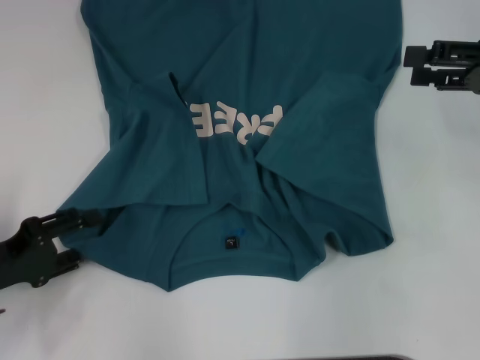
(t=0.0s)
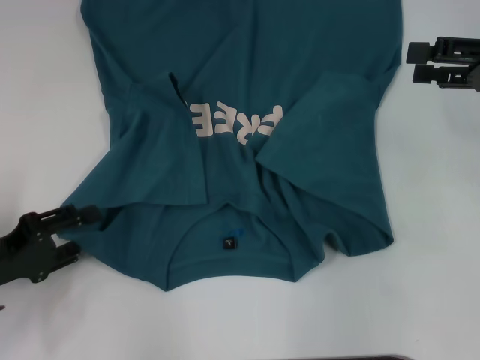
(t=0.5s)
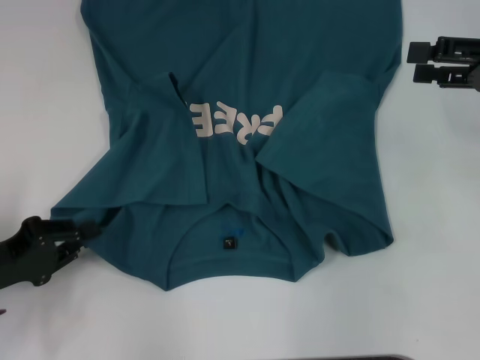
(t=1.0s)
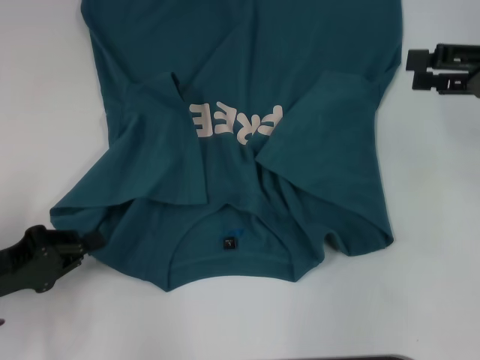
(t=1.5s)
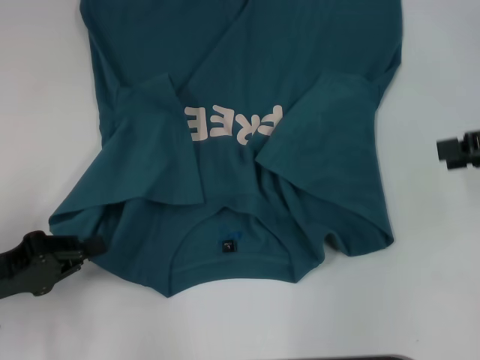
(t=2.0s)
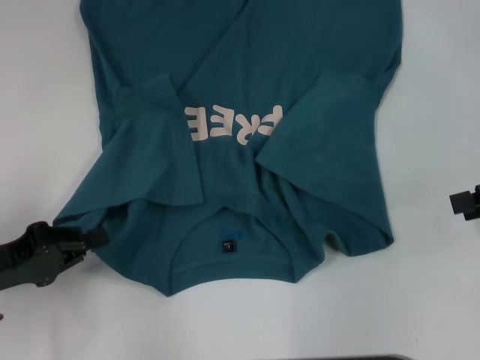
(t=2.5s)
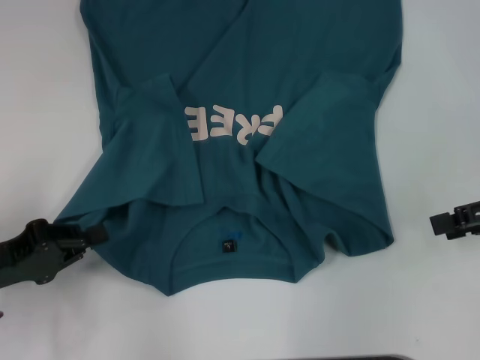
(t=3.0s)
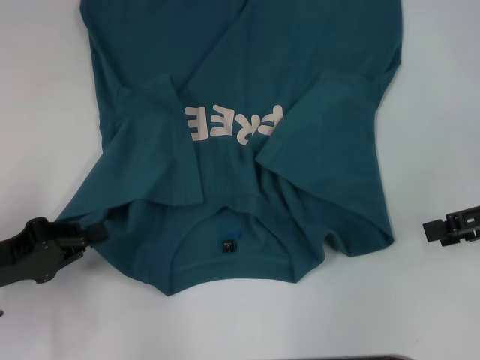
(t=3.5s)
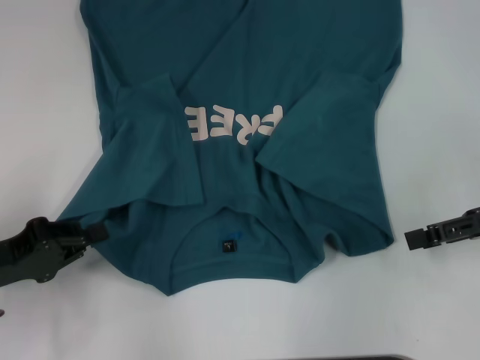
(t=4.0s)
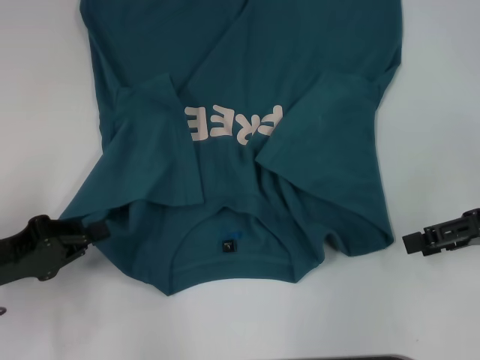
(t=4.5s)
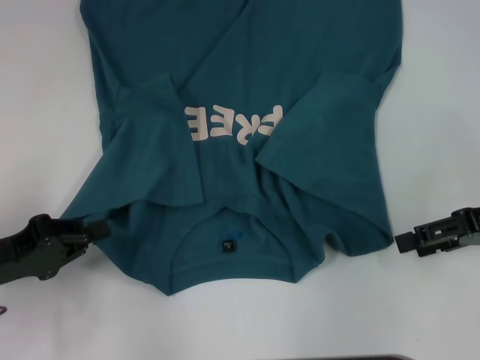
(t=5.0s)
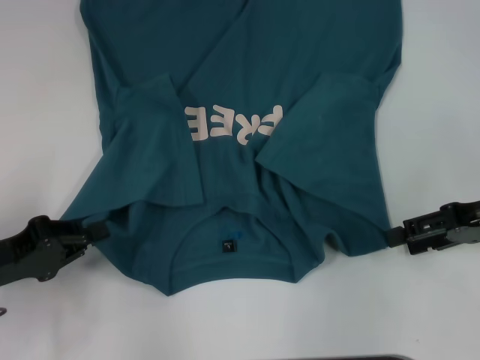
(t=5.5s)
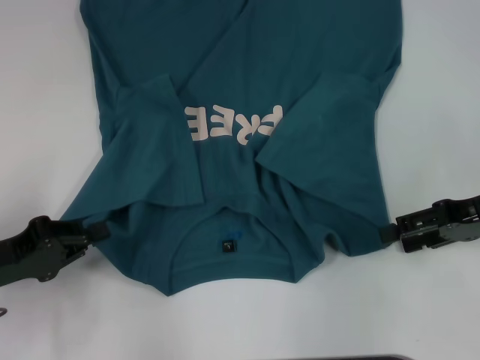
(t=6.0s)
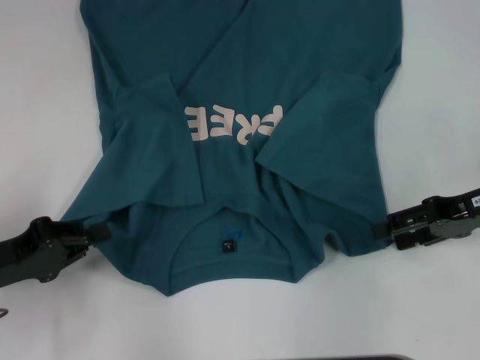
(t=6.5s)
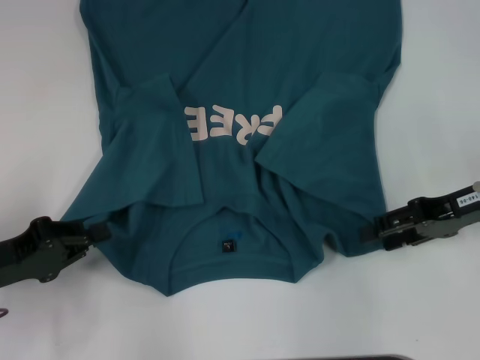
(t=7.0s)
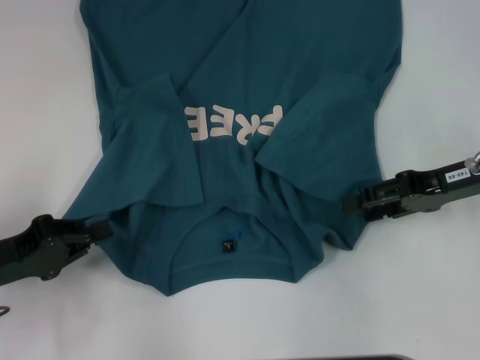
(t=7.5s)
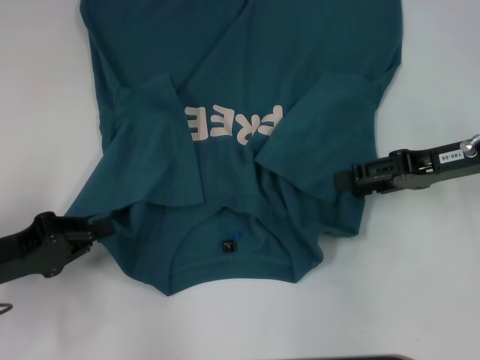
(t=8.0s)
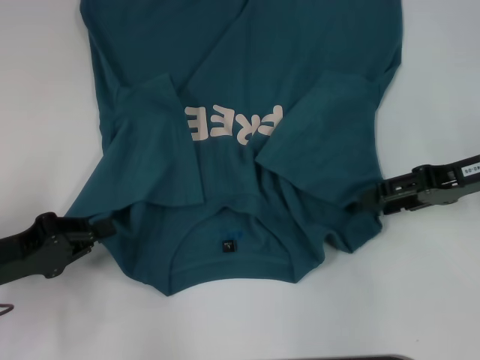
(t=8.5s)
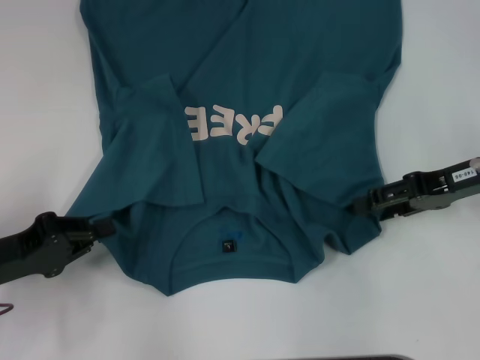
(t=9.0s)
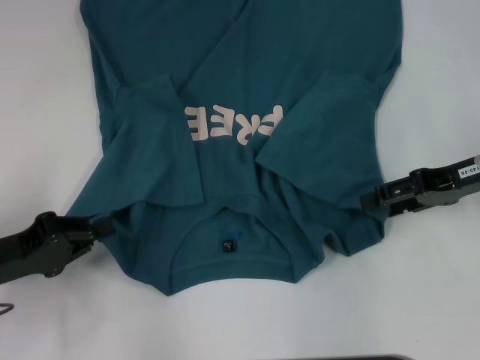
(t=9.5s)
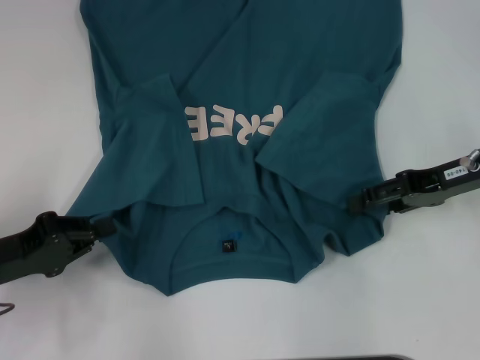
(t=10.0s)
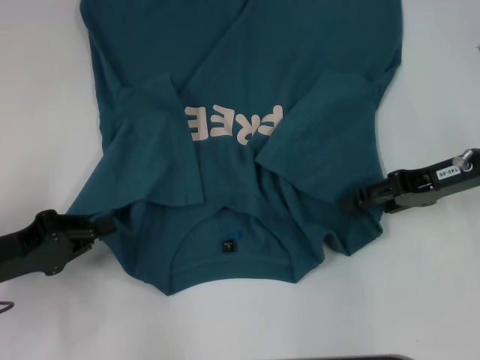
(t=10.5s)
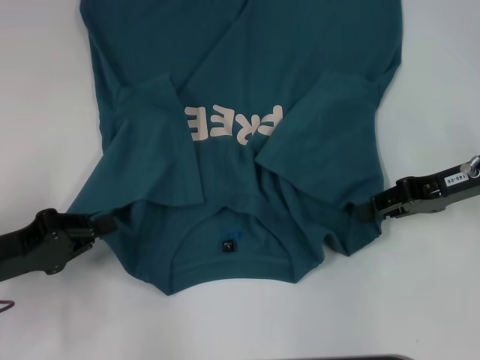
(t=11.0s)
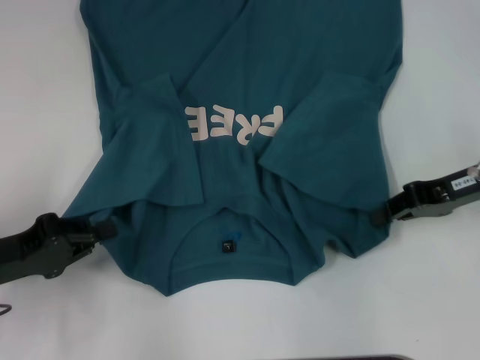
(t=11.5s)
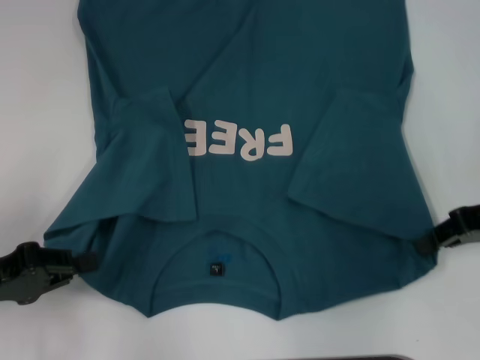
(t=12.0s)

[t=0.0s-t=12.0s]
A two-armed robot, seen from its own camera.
Step, t=1.5s to t=11.5s: Grab the bottom right corner with your right hand.
t=0.0s to t=2.0s: The left gripper closes.
t=2.0s to t=4.0s: The right gripper ends up some 5 cm from where it was.
t=4.0s to t=6.0s: The grippers make only small movements.
t=6.0s to t=10.0s: There are only small adjustments of the grippers.
t=10.0s to t=12.0s: The right gripper closes.

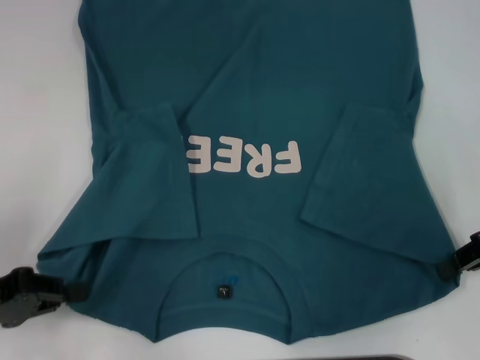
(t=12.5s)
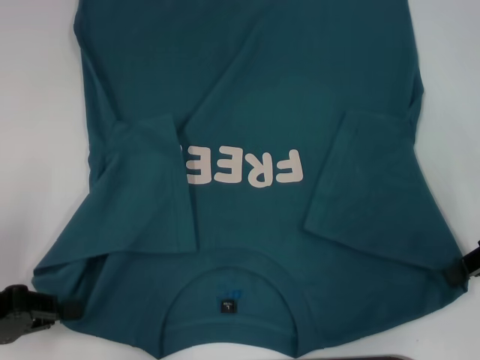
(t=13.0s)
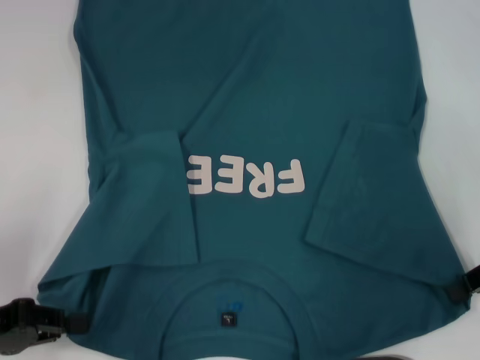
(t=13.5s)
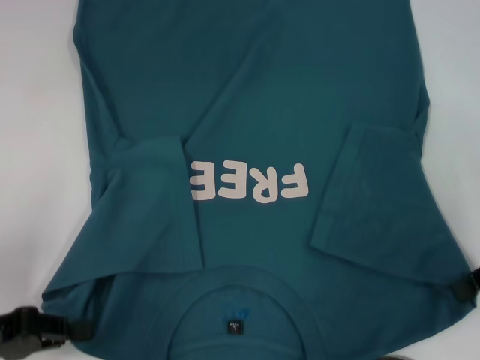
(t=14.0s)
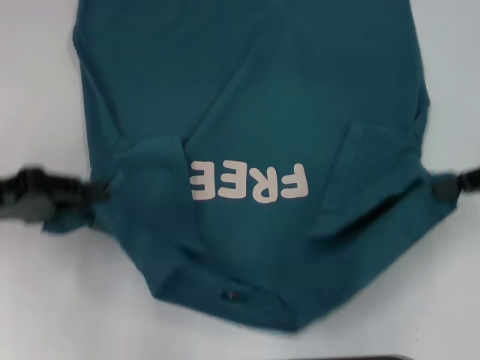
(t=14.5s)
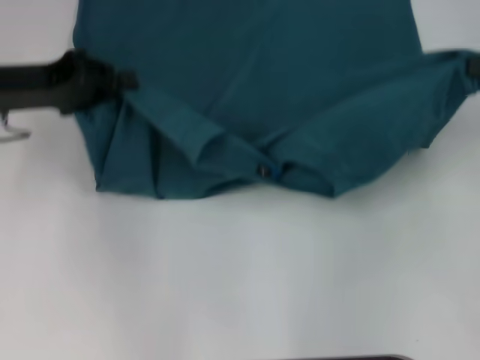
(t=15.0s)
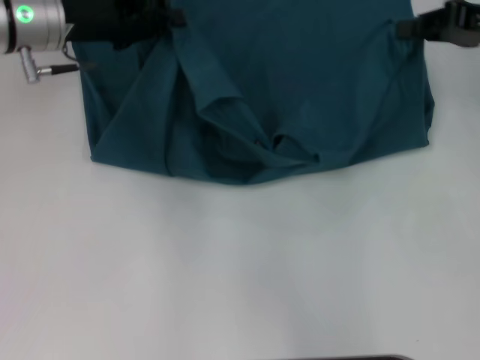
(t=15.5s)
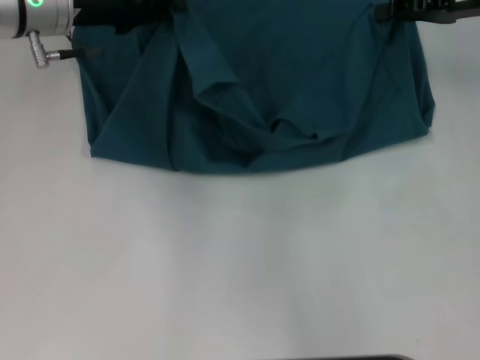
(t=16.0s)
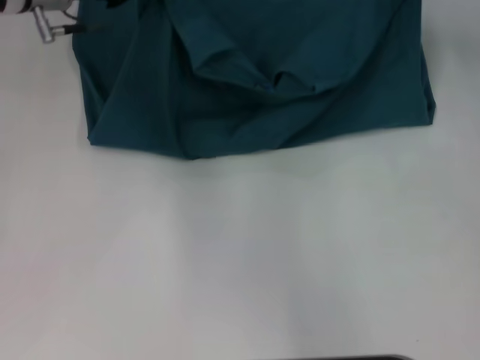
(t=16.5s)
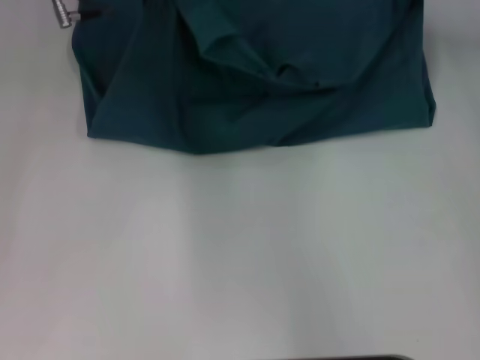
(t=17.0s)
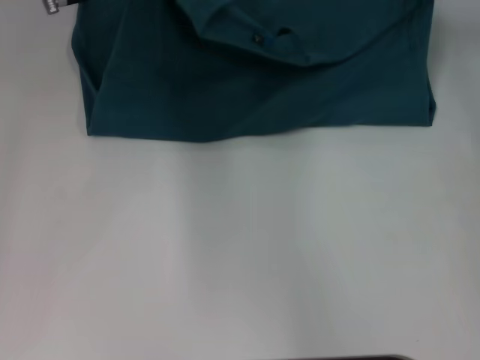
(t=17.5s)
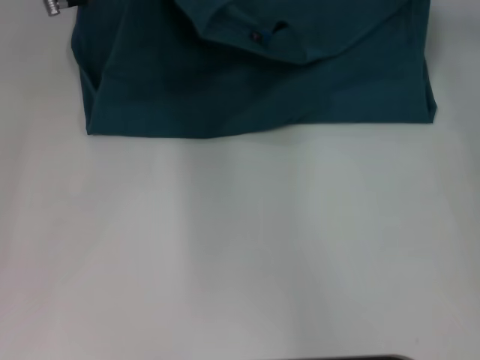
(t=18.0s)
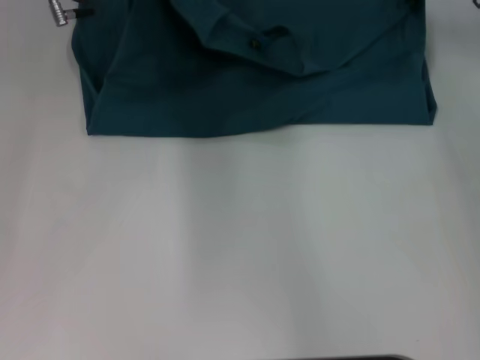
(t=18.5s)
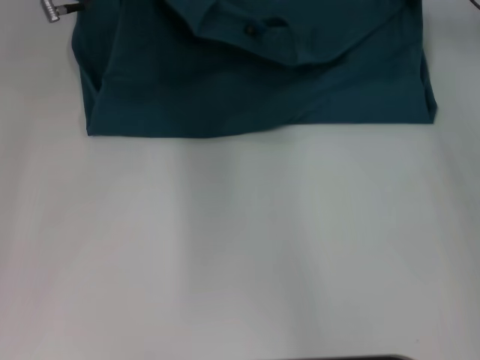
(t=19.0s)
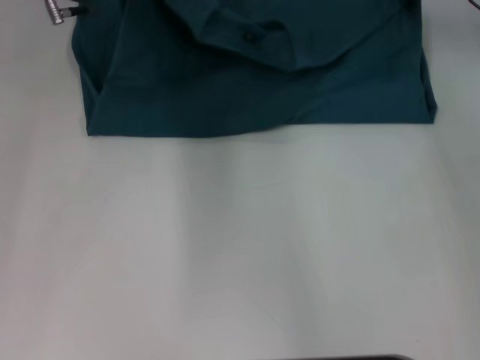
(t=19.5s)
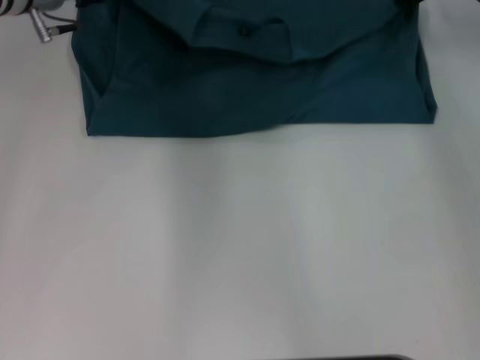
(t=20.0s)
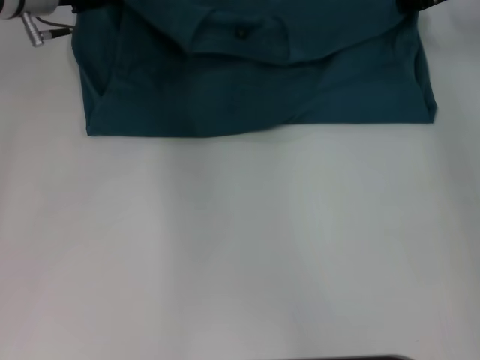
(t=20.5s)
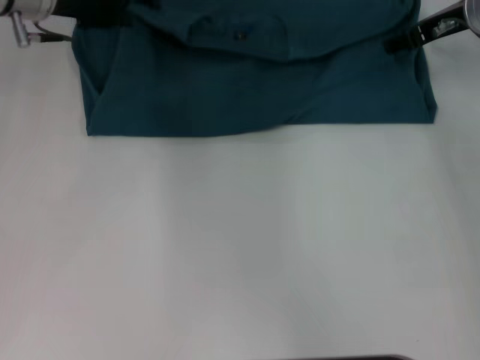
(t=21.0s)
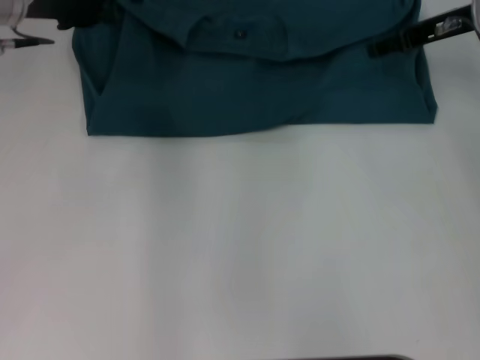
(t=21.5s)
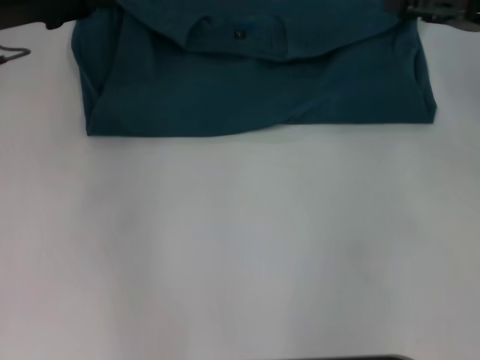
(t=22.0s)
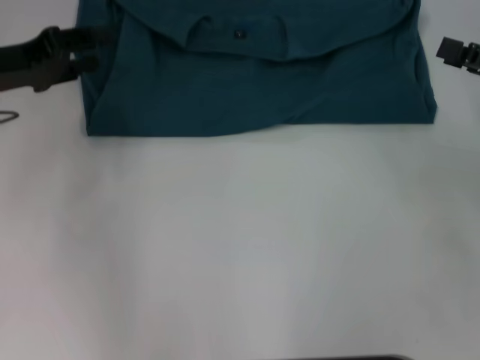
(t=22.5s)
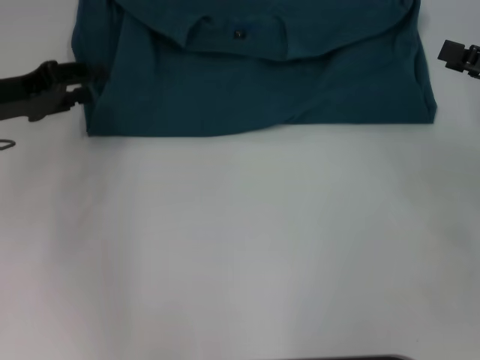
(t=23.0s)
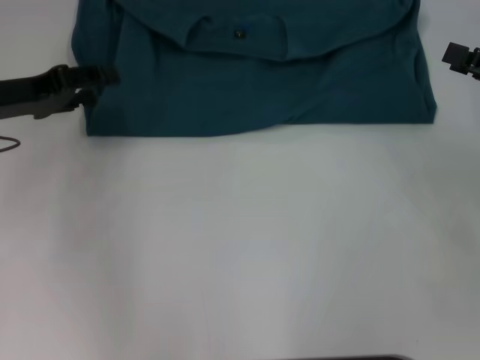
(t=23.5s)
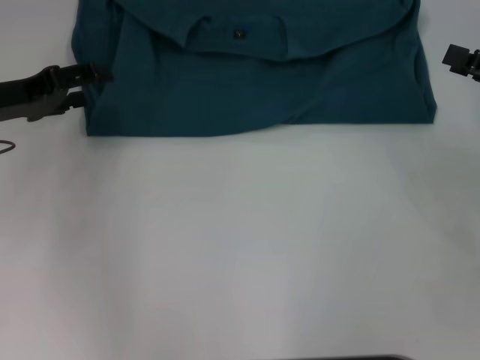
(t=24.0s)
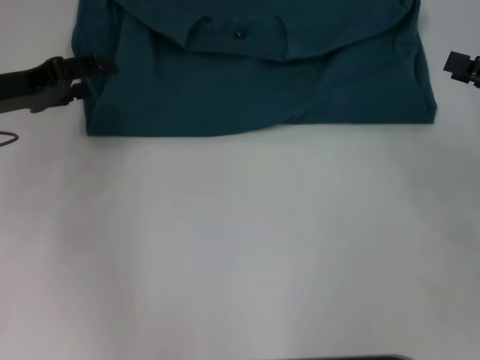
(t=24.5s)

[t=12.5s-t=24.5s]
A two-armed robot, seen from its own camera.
Step, t=12.5s to t=21.0s: Fold the clothes to the left.
Step, t=12.5s to t=21.0s: Fold the clothes to the right.
t=12.5s to t=14.5s: The left gripper is displaced forward by some 5 cm. Meanwhile the right gripper ends up approximately 5 cm from where it was.
t=14.5s to t=16.5s: The right gripper is displaced forward by about 15 cm. Meanwhile the left gripper shifts approximately 20 cm forward and to the right.
t=16.5s to t=18.5s: The right gripper ends up roughly 5 cm from where it was.
t=18.5s to t=20.5s: The left gripper opens its fingers. Meanwhile the right gripper opens.
t=20.5s to t=22.5s: The right gripper heads backward and to the right, covering roughly 20 cm. The left gripper heads backward and to the left, covering roughly 10 cm.
t=22.5s to t=24.5s: The grippers stay close to where they were, moving slightly.

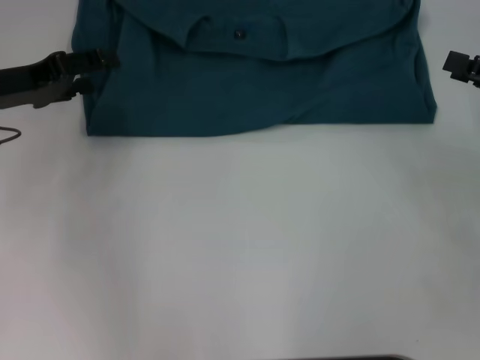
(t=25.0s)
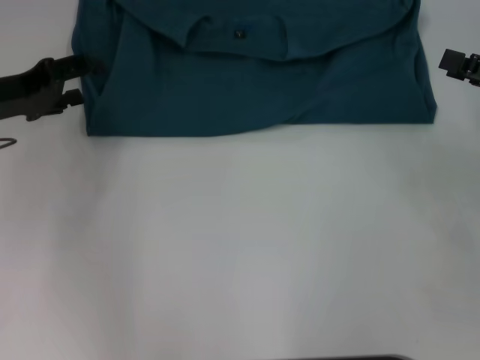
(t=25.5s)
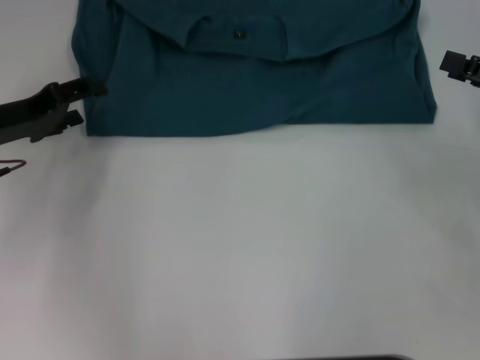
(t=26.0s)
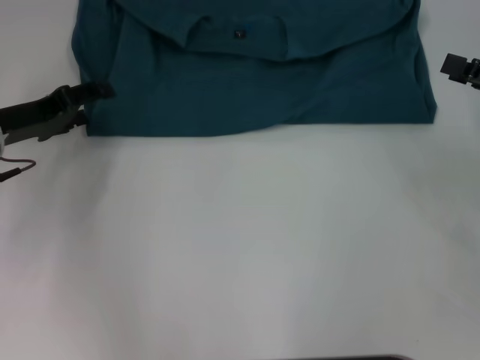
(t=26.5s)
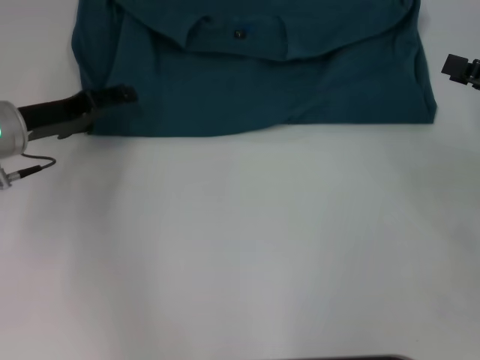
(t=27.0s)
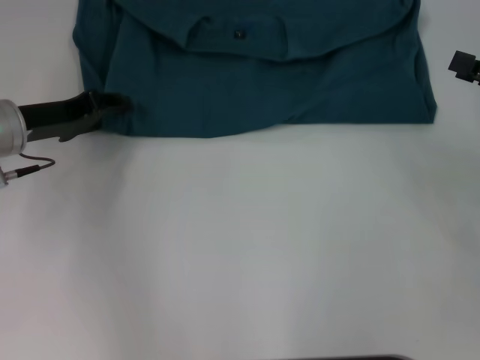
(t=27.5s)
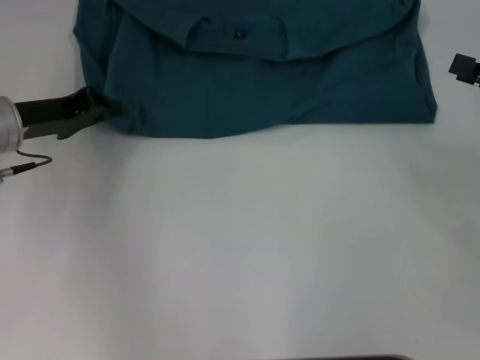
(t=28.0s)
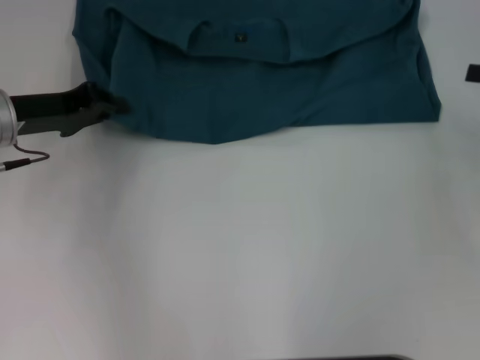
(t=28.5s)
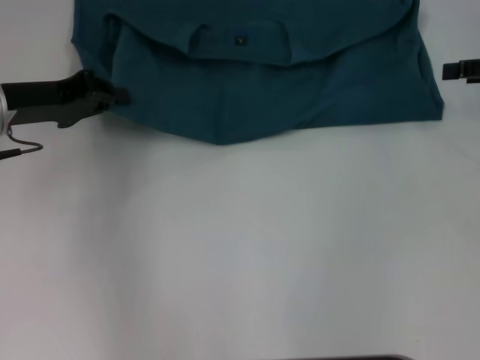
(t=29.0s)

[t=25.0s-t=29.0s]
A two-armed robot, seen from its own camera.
t=25.0s to t=27.0s: The left gripper shifts by about 5 cm.
t=27.0s to t=29.0s: The left gripper closes up, while the right gripper heads forward, covering some 10 cm.
